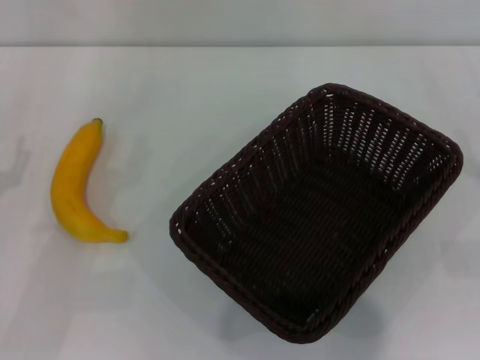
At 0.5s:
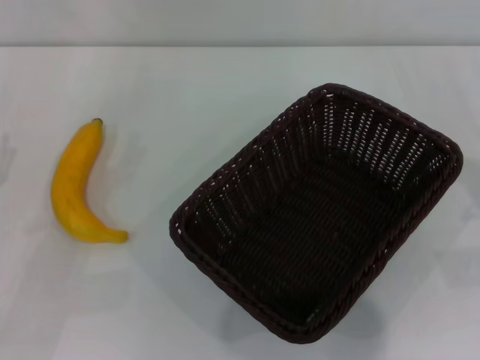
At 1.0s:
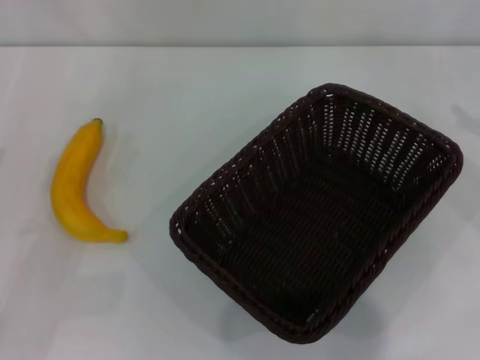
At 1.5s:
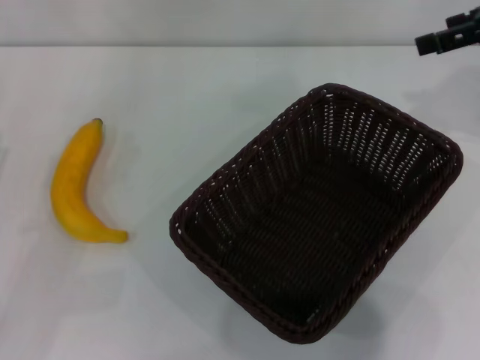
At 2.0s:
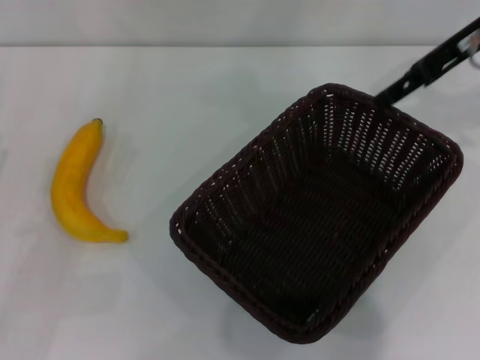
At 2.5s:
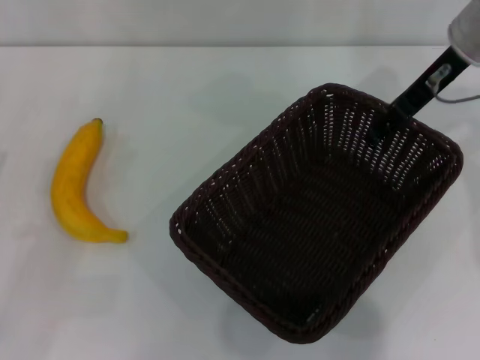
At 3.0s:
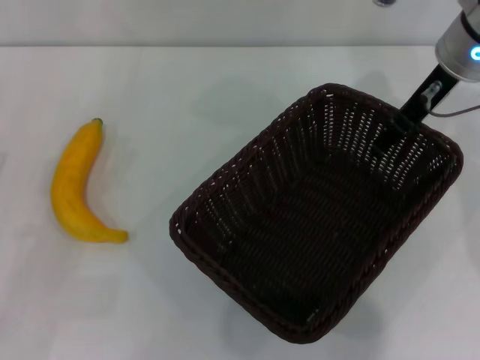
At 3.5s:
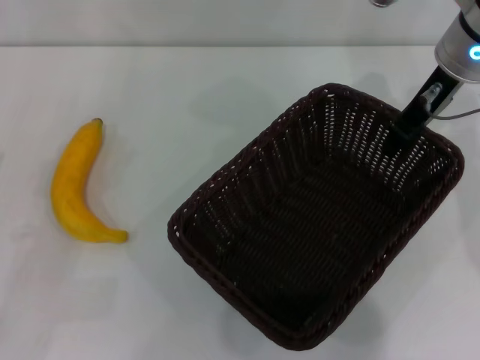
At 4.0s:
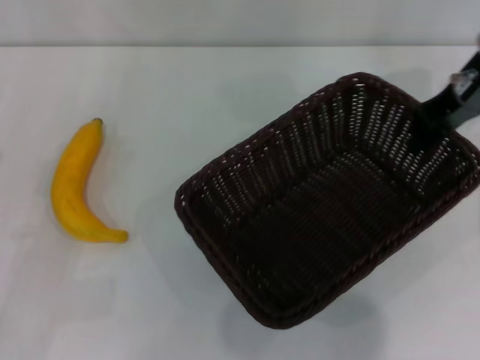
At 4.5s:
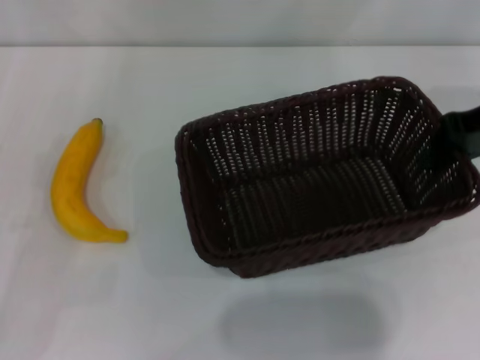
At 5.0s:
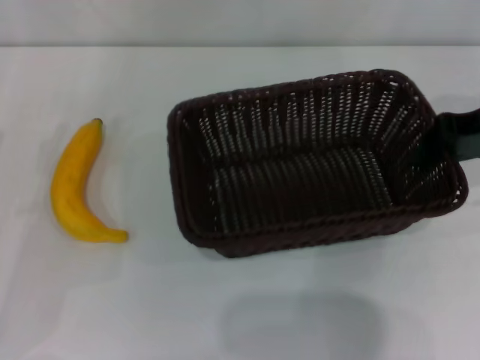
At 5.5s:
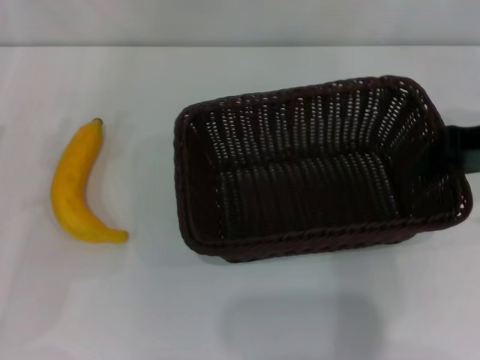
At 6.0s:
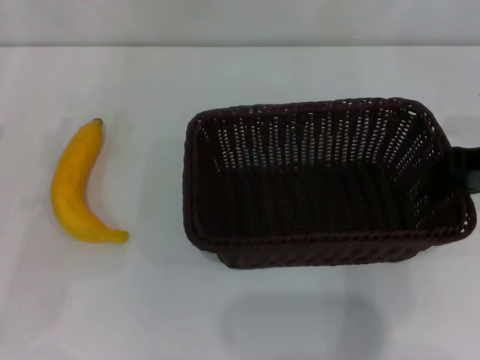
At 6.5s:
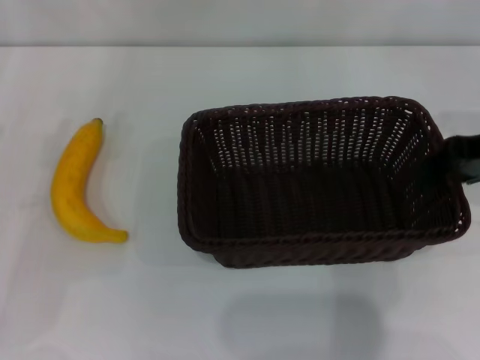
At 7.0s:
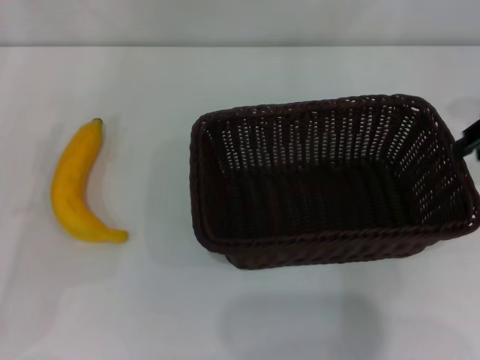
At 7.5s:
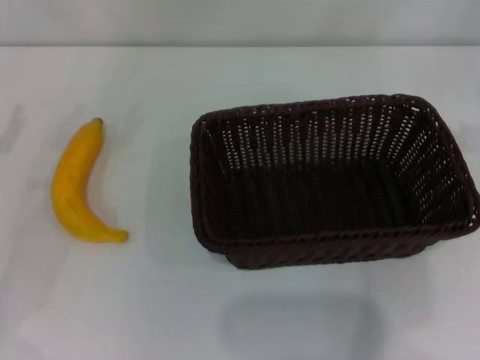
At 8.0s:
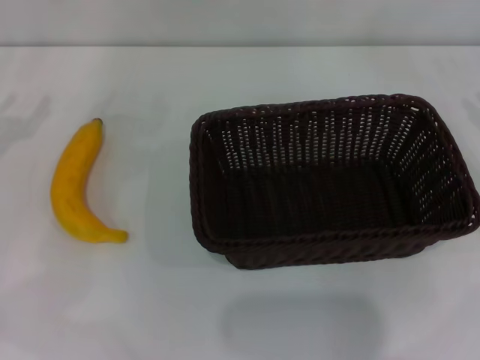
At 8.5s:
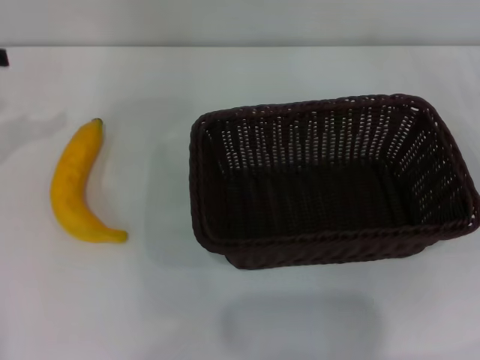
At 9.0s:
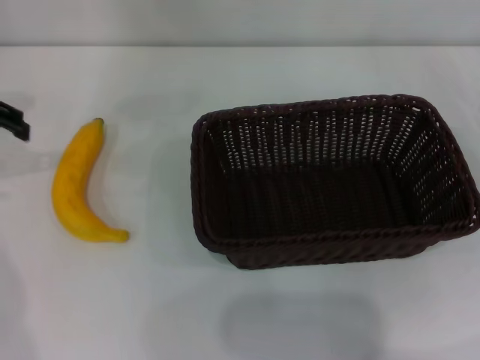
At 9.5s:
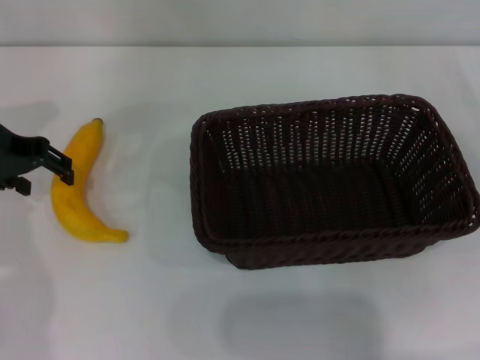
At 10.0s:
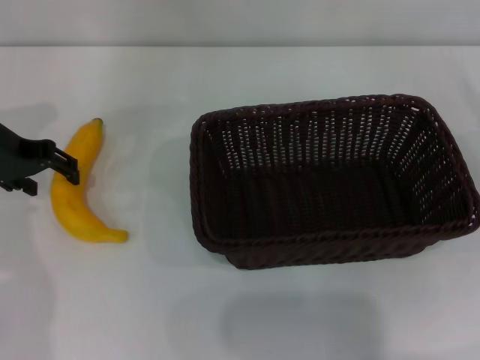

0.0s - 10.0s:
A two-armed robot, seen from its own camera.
Step, 0.0s - 3.5s: Pick up the dark basket with the right gripper.
Step, 4.0s - 6.5s: Place the dark basket in the center of view with the right gripper.
0.0s - 2.0s: The right gripper travels upward, forward and to the left by roughly 30 cm.
2.0s - 4.0s: The right gripper closes.
4.0s - 6.0s: The right gripper is displaced backward and to the right by about 10 cm.
6.0s - 8.0s: The left gripper travels upward by about 10 cm. The right gripper shifts about 10 cm to the right.
8.0s - 10.0s: The left gripper travels to the right and forward by approximately 10 cm.

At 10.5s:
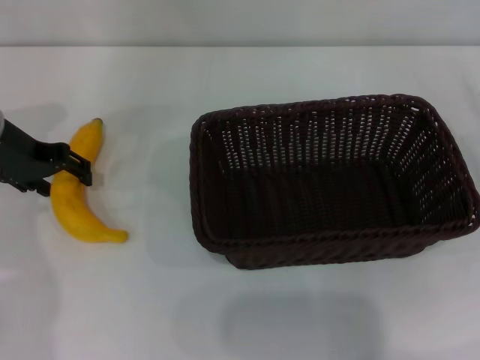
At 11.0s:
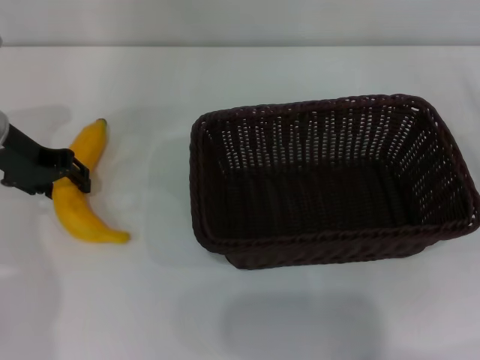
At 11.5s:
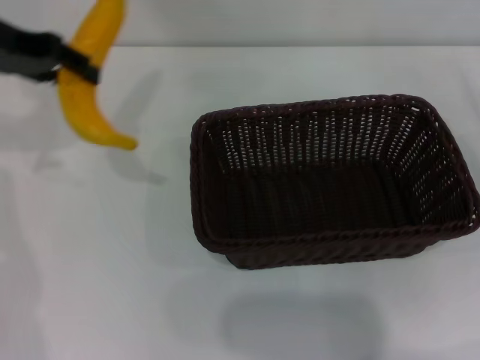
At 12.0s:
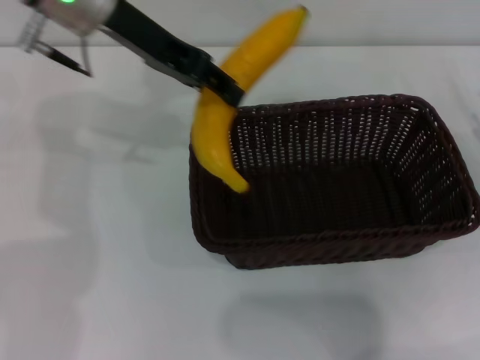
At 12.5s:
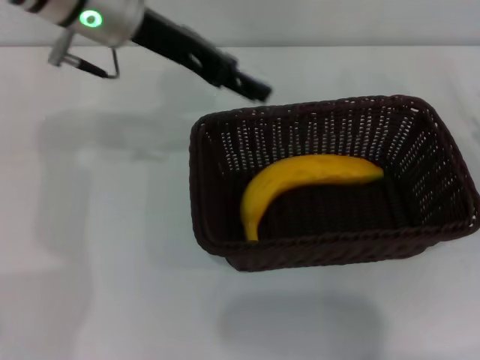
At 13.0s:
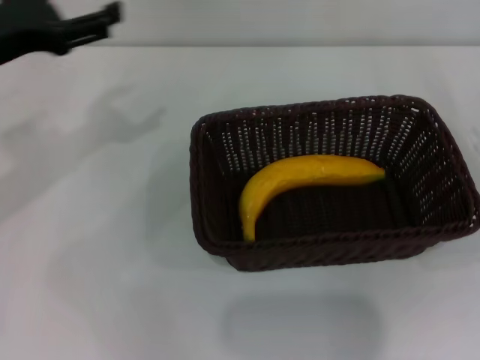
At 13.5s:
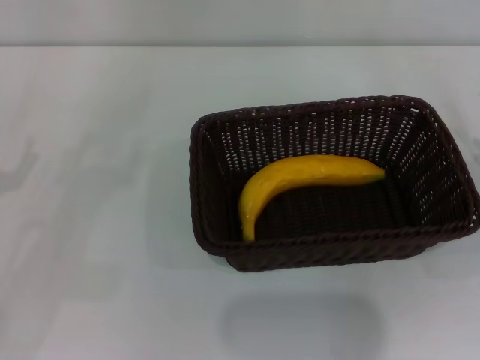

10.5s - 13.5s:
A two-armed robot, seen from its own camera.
Step, 11.5s - 12.0s: Place the banana into the dark basket with the left gripper.
10.5s - 12.0s: The left gripper is displaced to the right and upward by some 15 cm, and closes its fingers.
12.0s - 13.5s: The left gripper shifts approximately 30 cm to the left, downward and backward, and opens up; the right gripper moves approximately 5 cm.

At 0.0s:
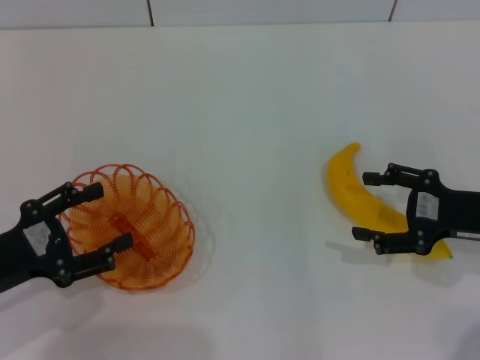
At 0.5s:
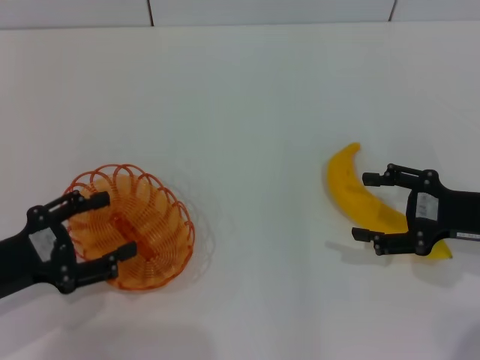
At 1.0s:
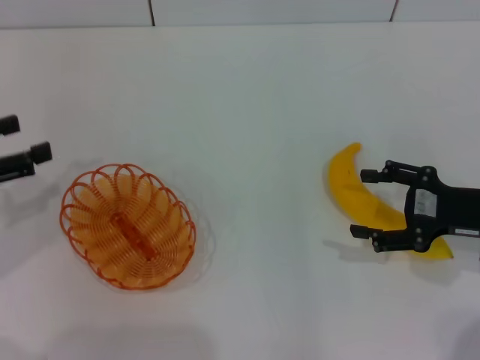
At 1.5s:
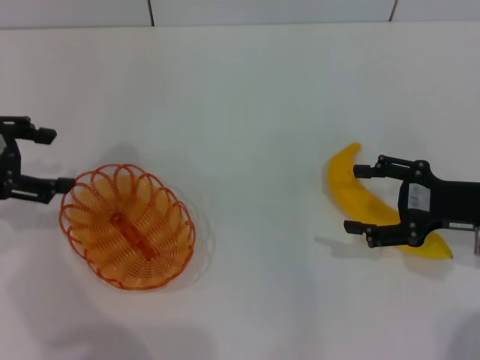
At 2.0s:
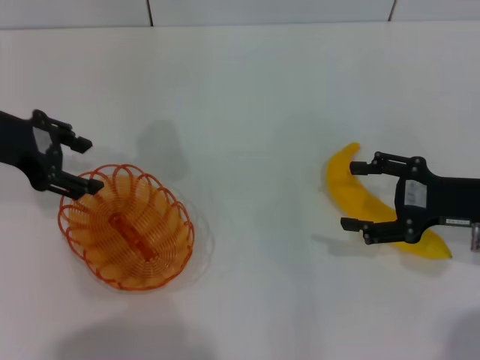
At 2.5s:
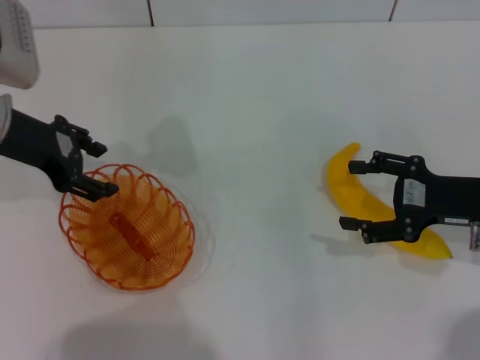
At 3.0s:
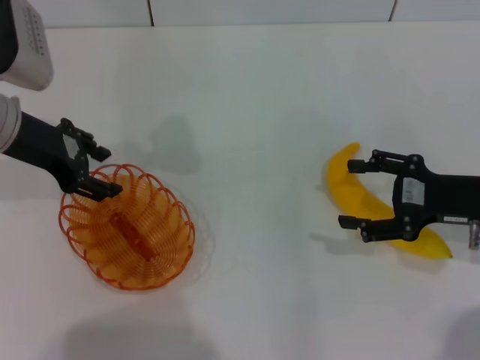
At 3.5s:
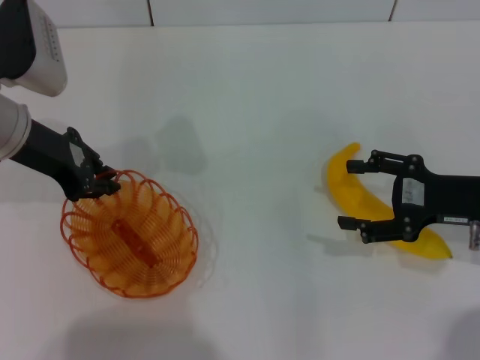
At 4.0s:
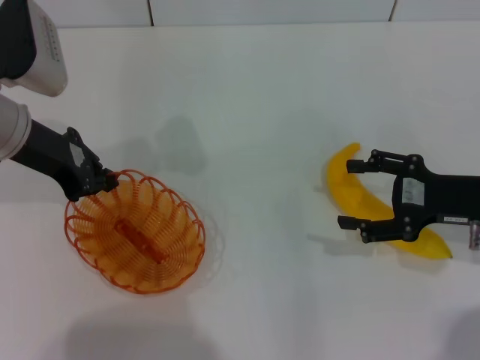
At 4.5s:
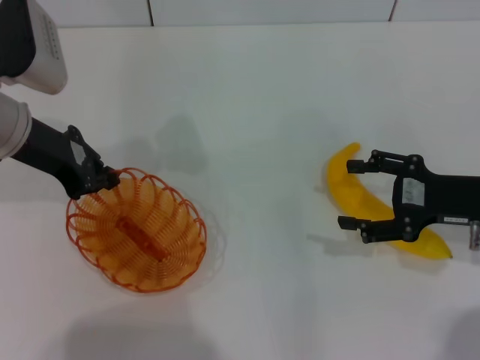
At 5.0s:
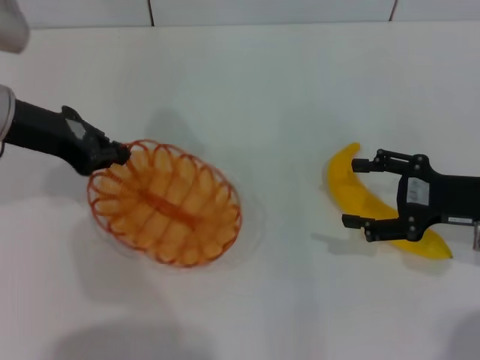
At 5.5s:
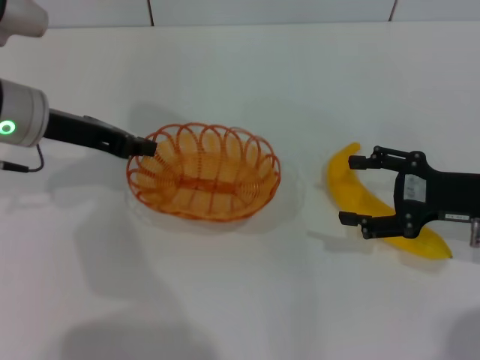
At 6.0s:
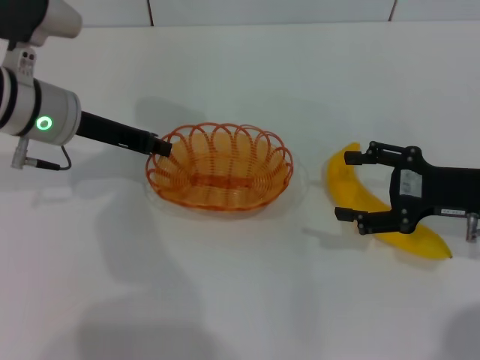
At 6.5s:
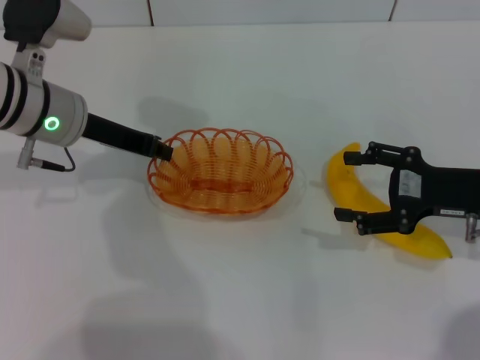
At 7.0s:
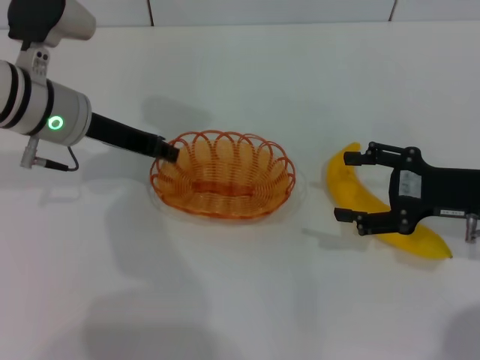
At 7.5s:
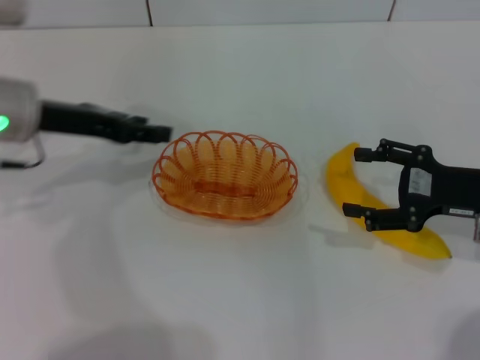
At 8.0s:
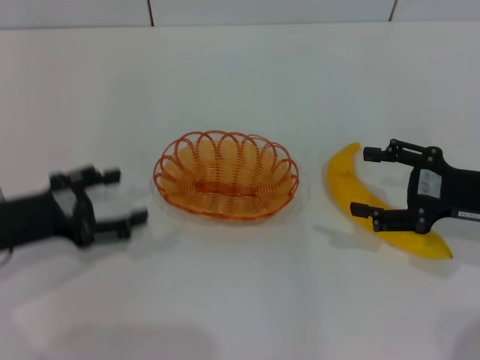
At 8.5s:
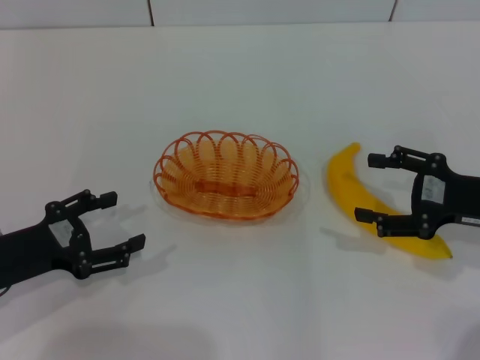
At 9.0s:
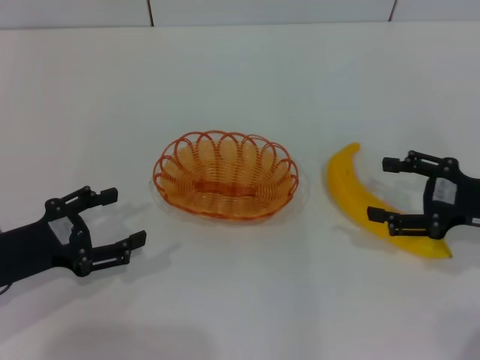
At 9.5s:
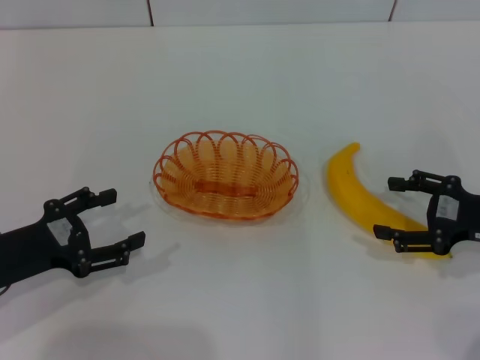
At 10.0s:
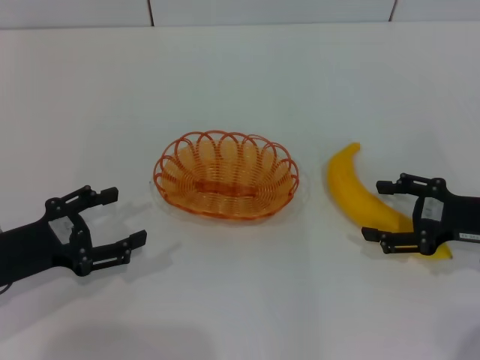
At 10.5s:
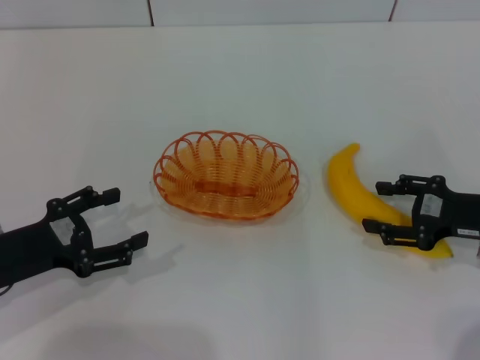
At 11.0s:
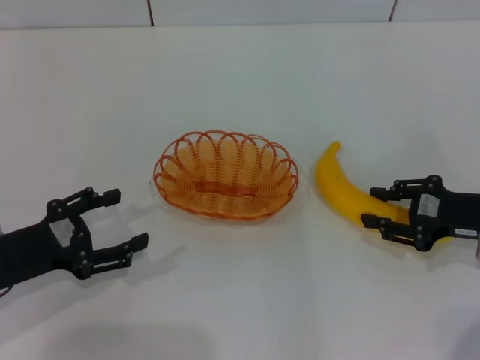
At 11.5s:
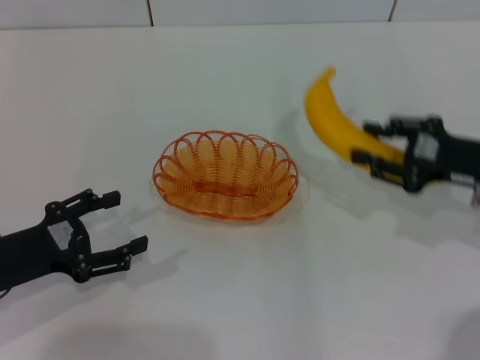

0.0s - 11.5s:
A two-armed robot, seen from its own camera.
Step, 0.0s - 5.0s: Pick up the basket with the left gripper.
Step, 5.5s - 7.5s: Place the basket in the center of view with the left gripper.
0.0s - 2.0s: The left gripper heads forward and upward, covering roughly 20 cm.
2.0s - 4.0s: The left gripper closes.
6.0s - 7.5s: The left gripper opens.
7.5s - 9.5s: The left gripper shifts some 15 cm backward, downward and to the left, and opens.
9.5s - 11.5s: The right gripper moves roughly 5 cm, and closes its fingers.

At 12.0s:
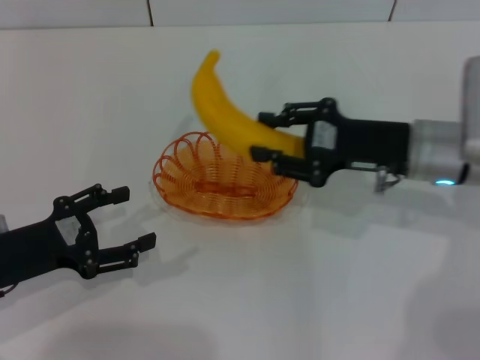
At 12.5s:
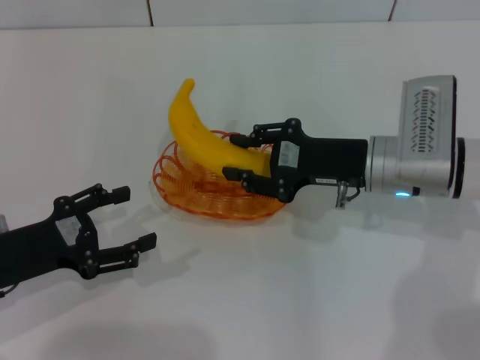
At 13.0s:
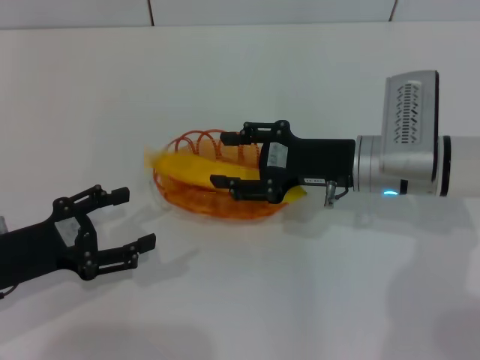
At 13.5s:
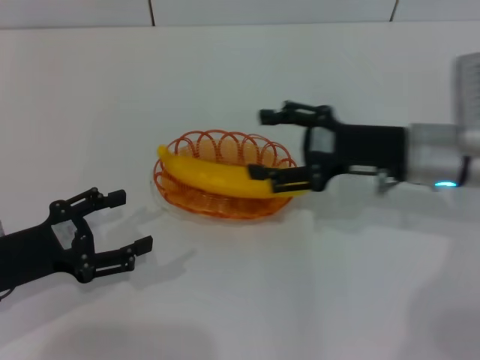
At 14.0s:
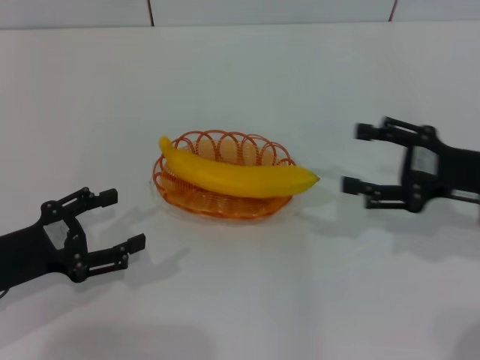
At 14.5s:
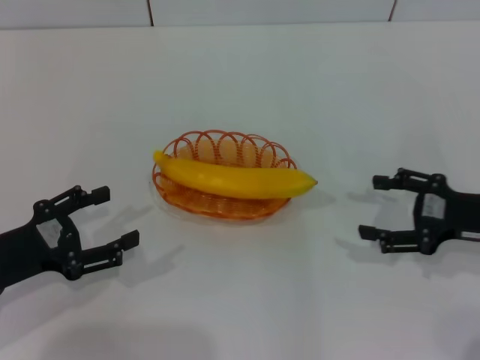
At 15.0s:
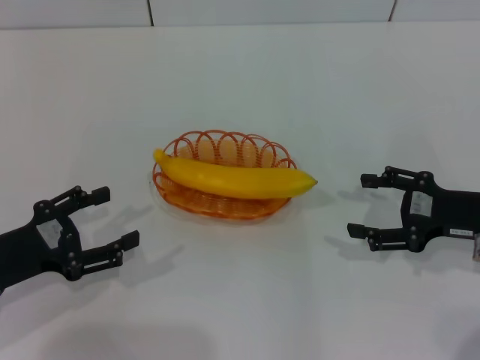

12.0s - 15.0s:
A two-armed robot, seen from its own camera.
Step, 12.0s - 13.0s: Place the banana into the basket with the right gripper.
12.0s - 13.5s: The right gripper opens.
13.5s - 15.0s: The right gripper goes approximately 10 cm to the right and backward.
